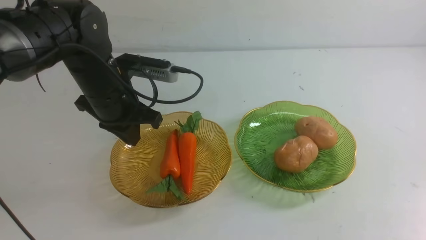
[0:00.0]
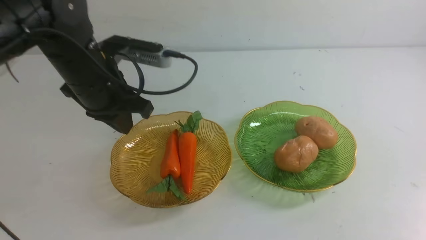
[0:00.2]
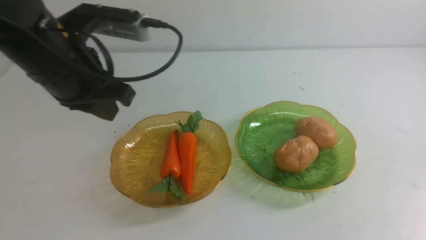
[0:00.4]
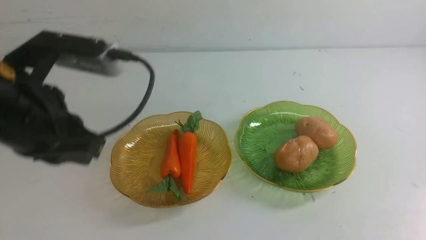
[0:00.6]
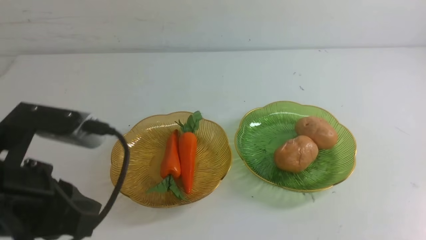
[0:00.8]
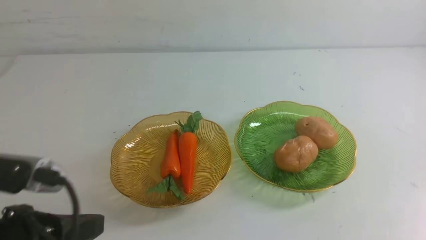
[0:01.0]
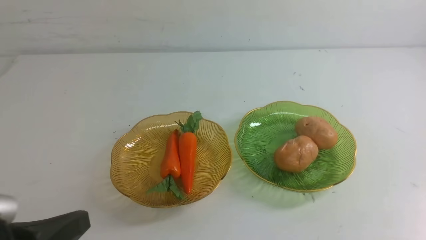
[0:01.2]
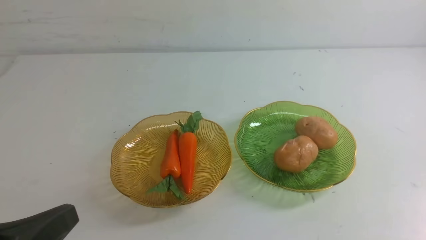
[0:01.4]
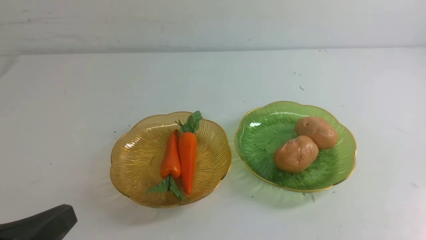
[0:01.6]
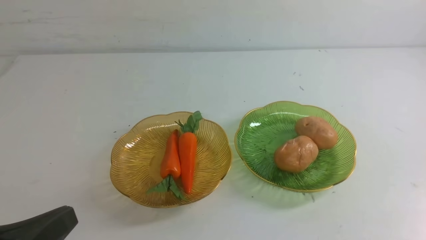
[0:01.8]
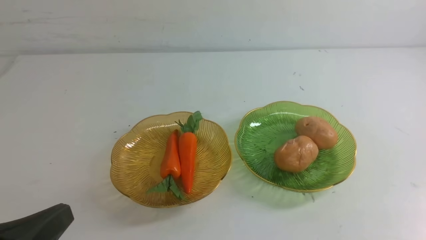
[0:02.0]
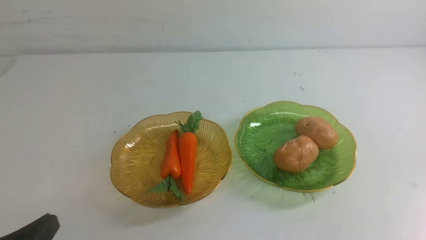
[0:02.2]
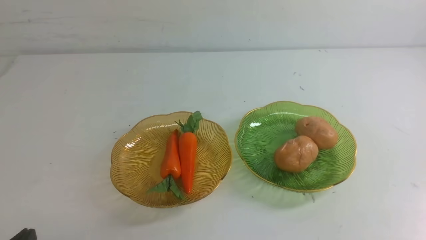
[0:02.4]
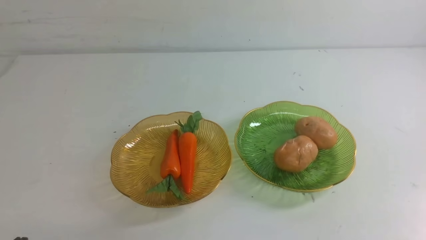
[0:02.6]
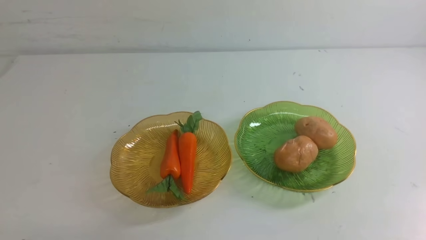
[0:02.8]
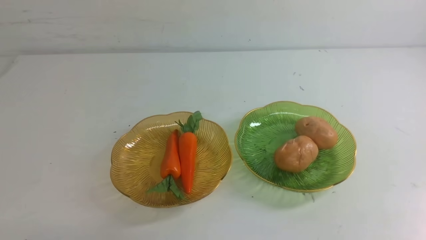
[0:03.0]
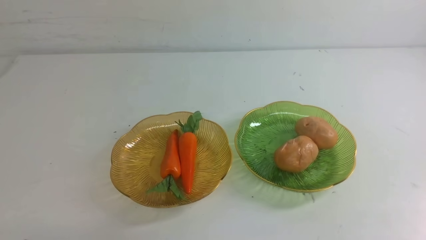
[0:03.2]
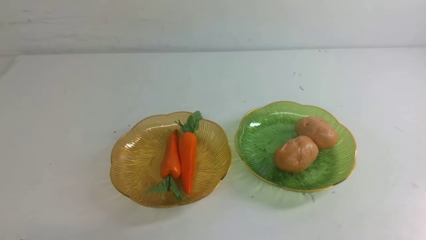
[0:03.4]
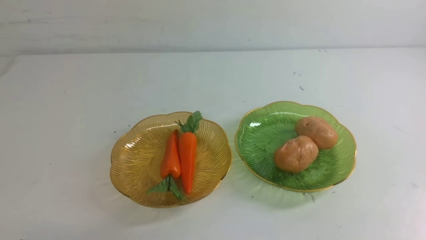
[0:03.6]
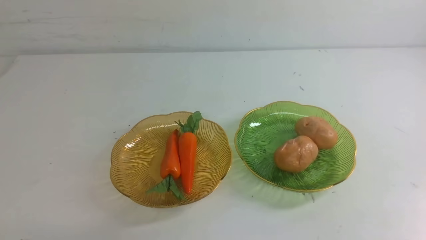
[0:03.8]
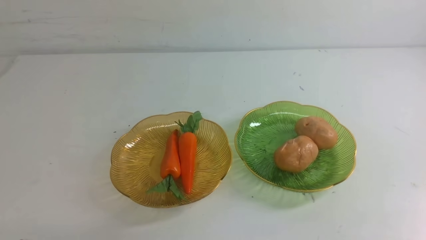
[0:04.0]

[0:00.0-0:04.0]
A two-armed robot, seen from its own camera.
0:00.0 to 0:01.4: The left gripper heads backward, covering approximately 25 cm.
0:01.4 to 0:02.6: The left gripper goes approximately 10 cm downward.
0:02.6 to 0:04.0: Neither gripper changes place.
